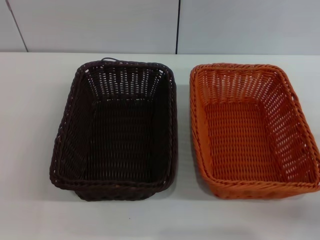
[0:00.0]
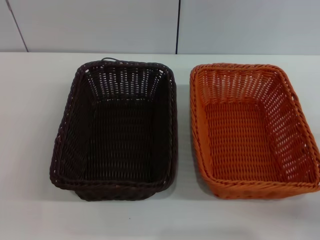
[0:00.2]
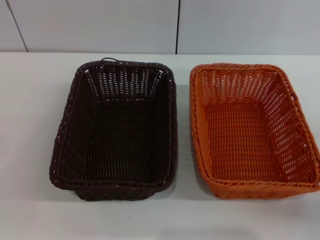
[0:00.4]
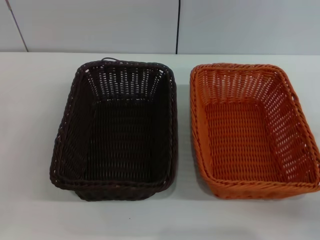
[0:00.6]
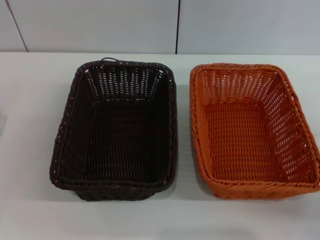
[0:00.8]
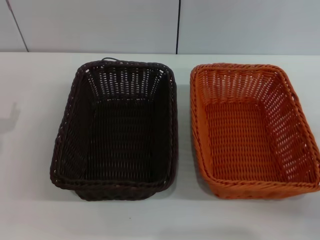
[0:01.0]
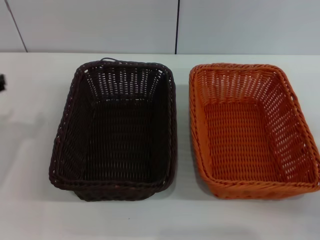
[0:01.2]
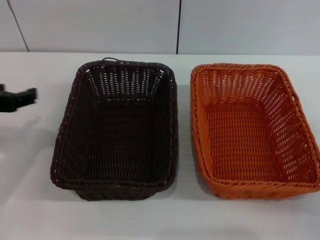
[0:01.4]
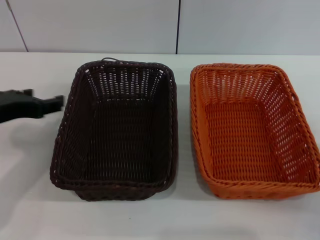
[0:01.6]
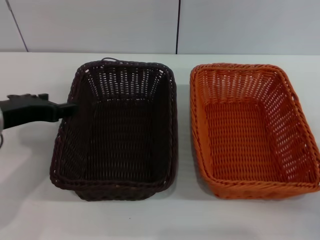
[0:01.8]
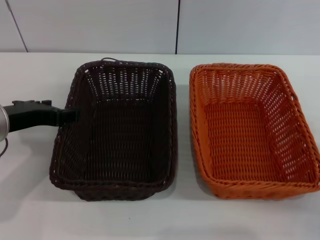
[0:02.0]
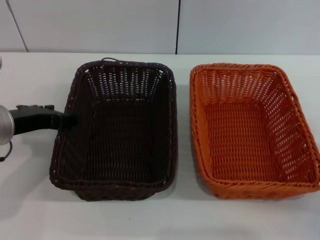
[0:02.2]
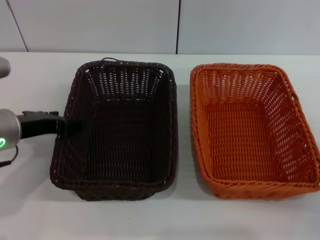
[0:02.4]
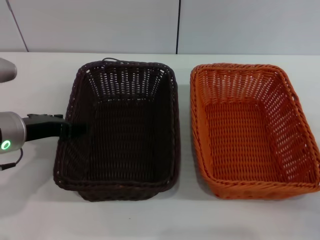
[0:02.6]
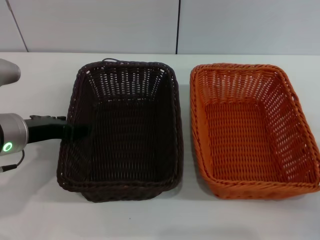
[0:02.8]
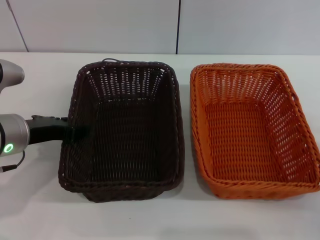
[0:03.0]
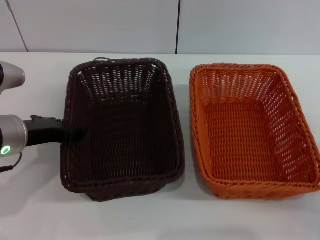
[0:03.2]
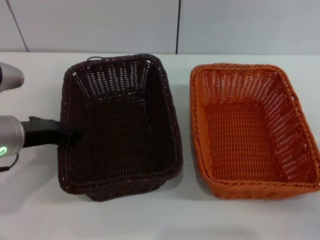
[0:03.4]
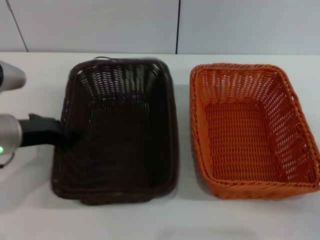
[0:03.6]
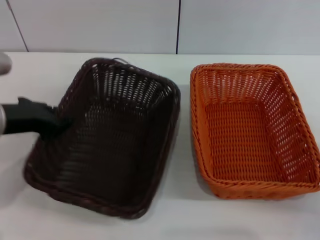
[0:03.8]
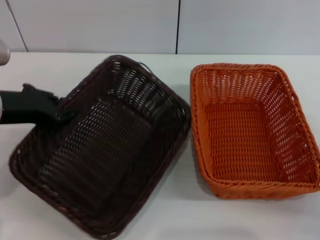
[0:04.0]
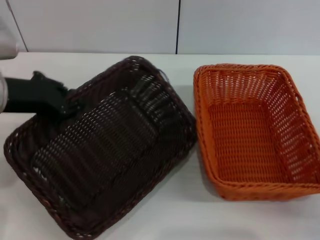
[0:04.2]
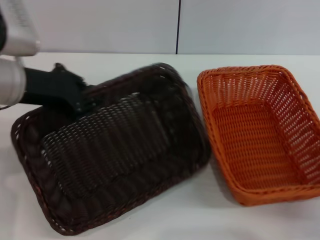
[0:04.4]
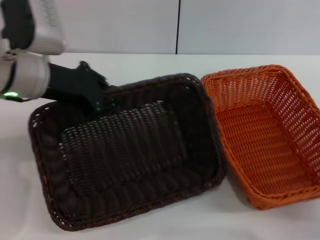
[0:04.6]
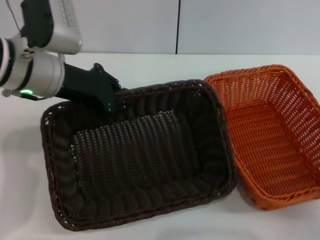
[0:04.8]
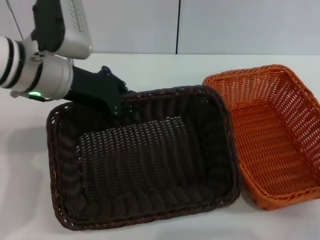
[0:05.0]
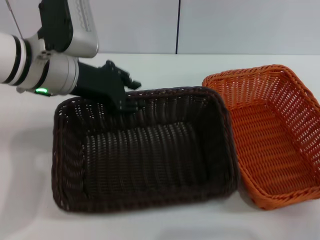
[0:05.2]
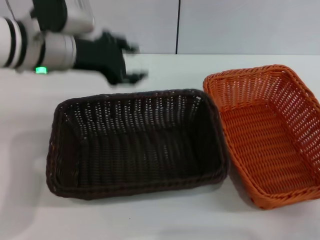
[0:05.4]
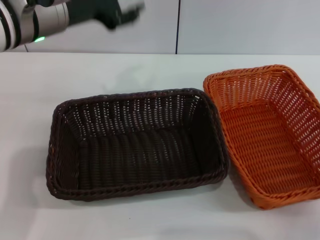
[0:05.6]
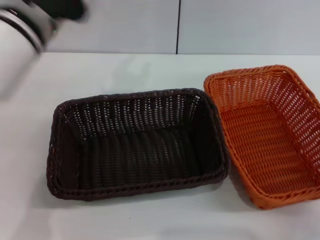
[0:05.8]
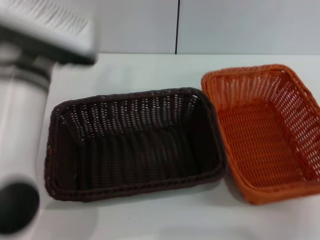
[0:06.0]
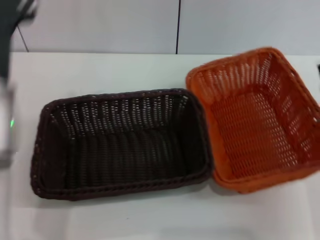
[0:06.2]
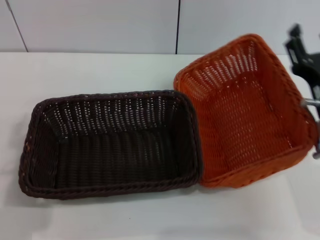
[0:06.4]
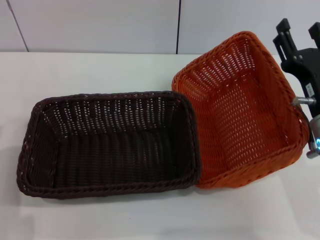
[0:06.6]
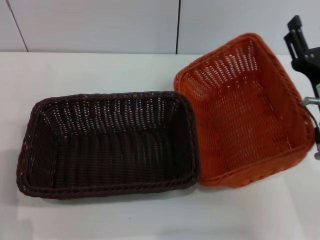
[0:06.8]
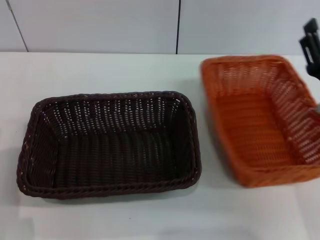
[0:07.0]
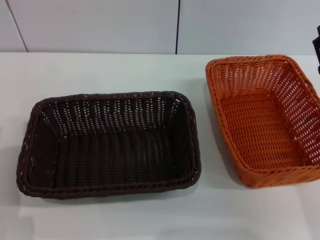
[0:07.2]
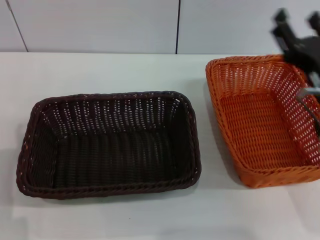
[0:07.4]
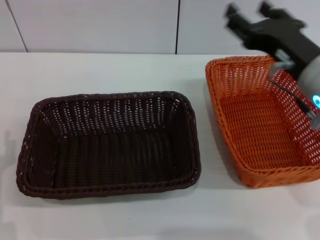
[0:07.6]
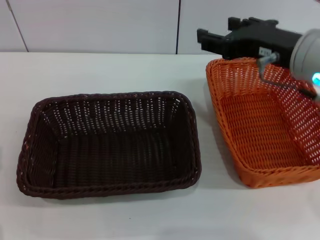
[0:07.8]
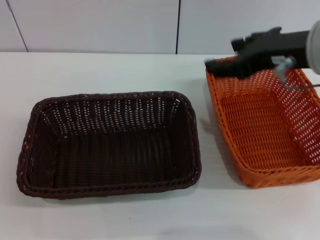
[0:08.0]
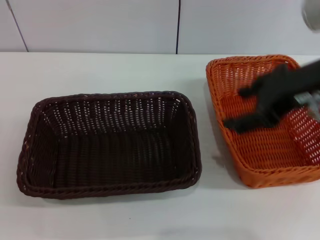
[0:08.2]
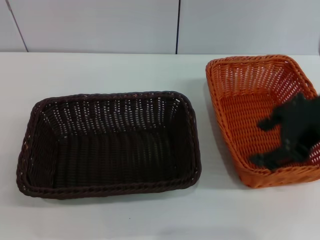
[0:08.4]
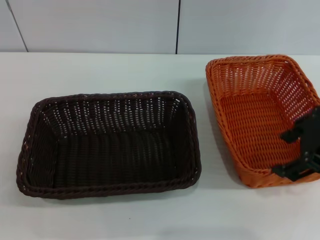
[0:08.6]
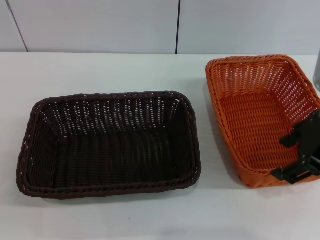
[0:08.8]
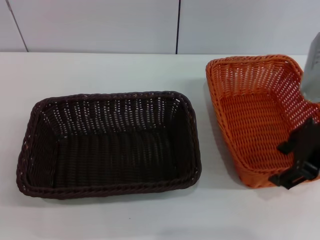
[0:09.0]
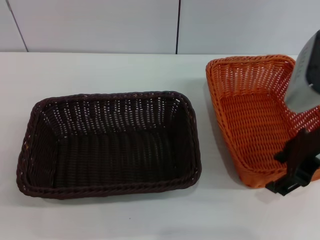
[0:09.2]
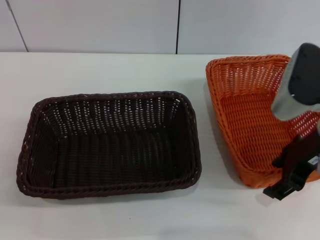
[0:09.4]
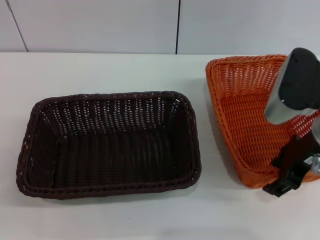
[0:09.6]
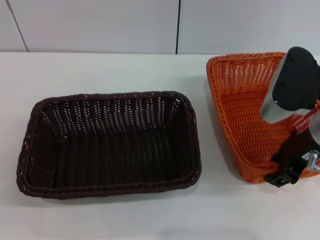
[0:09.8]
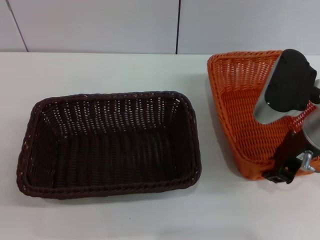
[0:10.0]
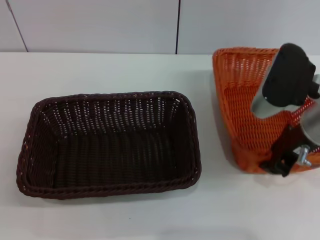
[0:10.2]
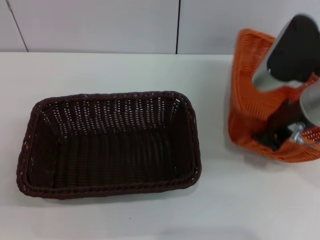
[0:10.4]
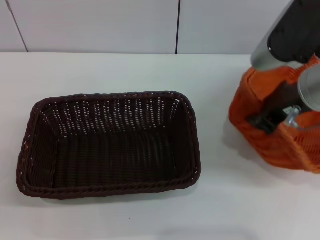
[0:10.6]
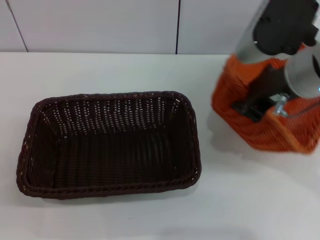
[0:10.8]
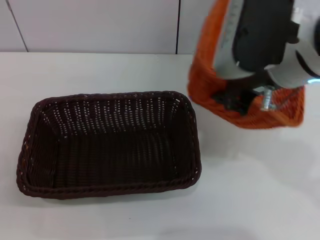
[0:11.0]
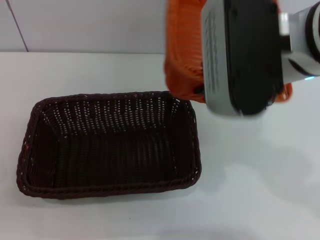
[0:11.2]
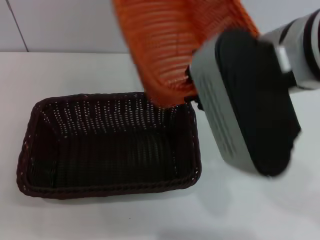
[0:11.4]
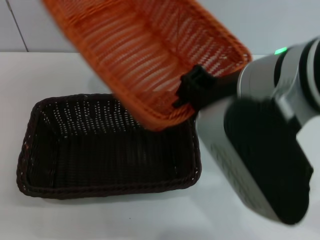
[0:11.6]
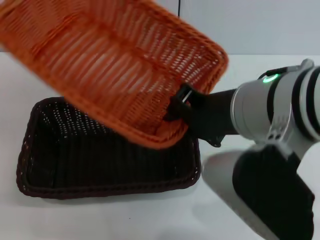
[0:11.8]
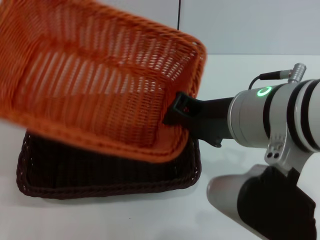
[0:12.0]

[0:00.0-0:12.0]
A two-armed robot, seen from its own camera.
Step, 0:00.0 to 0:04.4: Pick up the dark basket with the left gripper.
Step, 0:04.6 to 0:05.2: Place the dark basket in the center of view with the left gripper.
Step, 0:05.4 to 0:10.4: Pick up the light basket with the right gripper.
0:00.0 to 0:01.6: The left gripper moves upward, forward and to the right, some 20 cm.
0:01.6 to 0:03.0: The left gripper is displaced downward by approximately 5 cm.
0:03.0 to 0:04.4: The left gripper moves upward, approximately 10 cm, and closes its fingers.
0:04.4 to 0:06.0: The left gripper moves to the right, some 10 cm, and opens.
0:06.0 to 0:07.6: The left gripper moves downward, to the left and backward, some 25 cm; the right gripper heads upward and to the left, covering about 20 cm.
0:09.0 to 0:10.4: The right gripper closes its fingers.
0:10.4 to 0:12.0: The right gripper moves to the left and backward, approximately 10 cm.

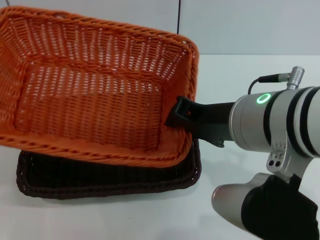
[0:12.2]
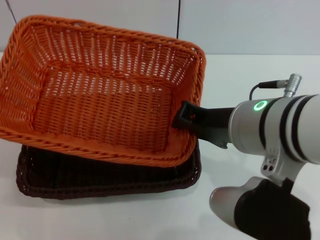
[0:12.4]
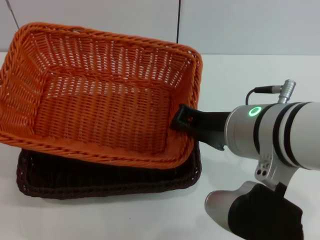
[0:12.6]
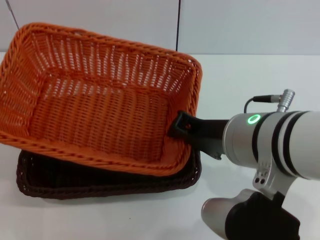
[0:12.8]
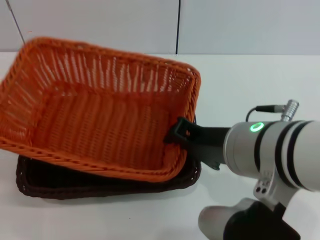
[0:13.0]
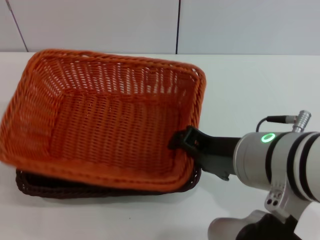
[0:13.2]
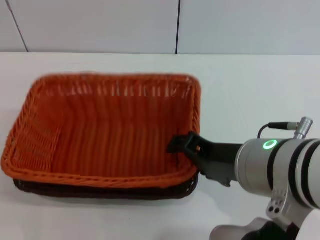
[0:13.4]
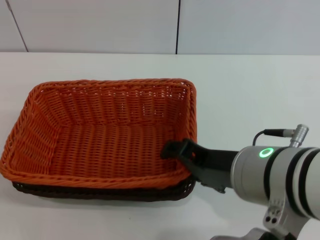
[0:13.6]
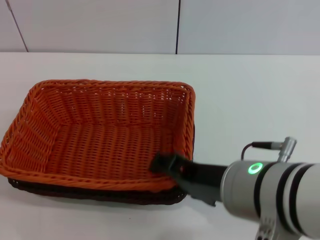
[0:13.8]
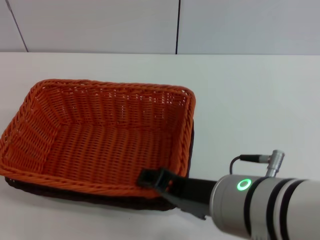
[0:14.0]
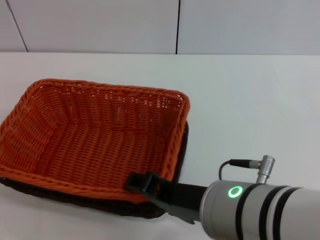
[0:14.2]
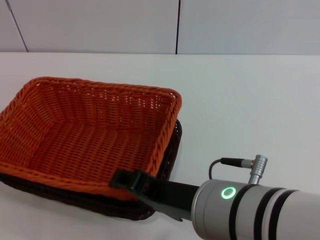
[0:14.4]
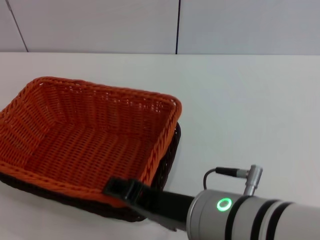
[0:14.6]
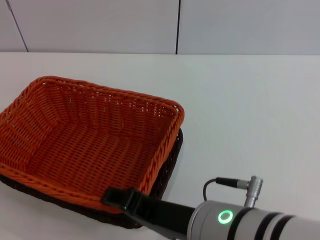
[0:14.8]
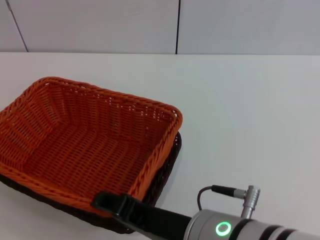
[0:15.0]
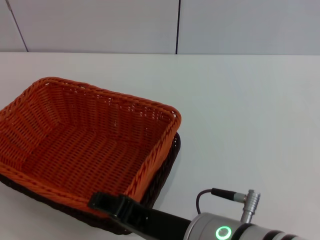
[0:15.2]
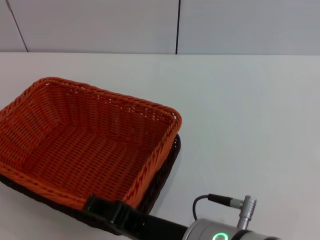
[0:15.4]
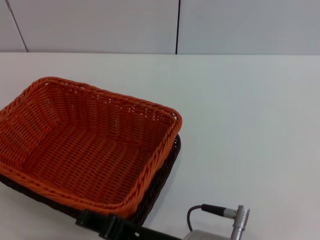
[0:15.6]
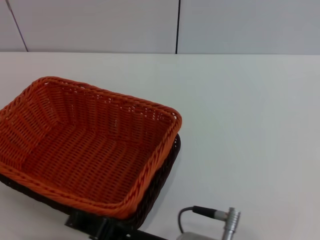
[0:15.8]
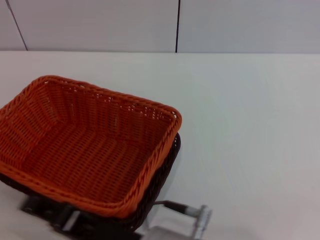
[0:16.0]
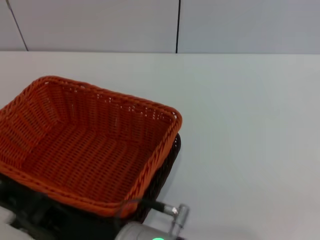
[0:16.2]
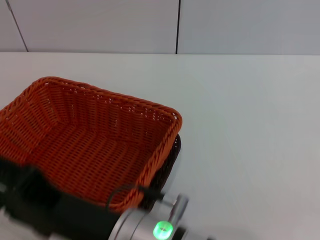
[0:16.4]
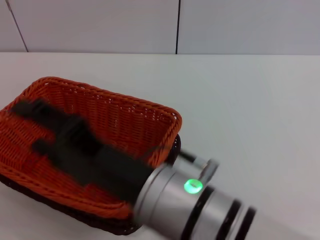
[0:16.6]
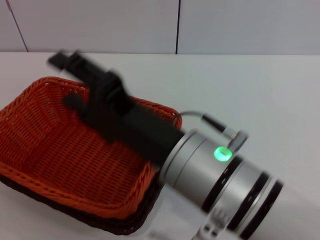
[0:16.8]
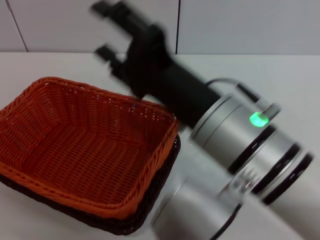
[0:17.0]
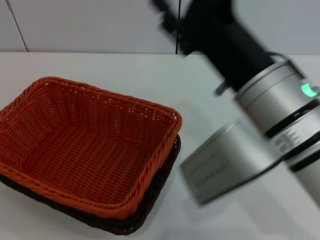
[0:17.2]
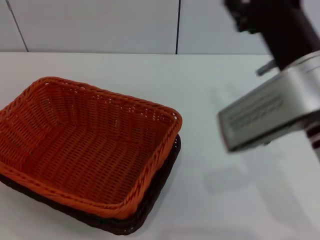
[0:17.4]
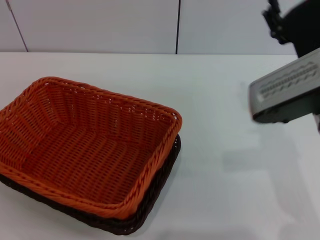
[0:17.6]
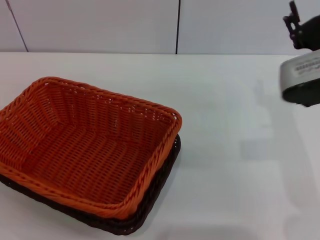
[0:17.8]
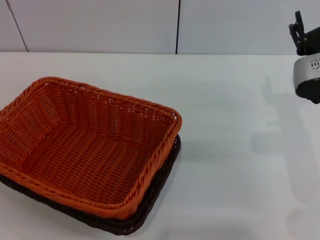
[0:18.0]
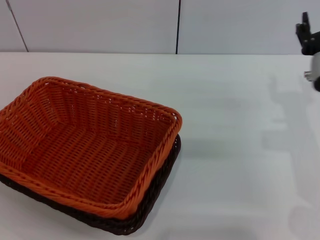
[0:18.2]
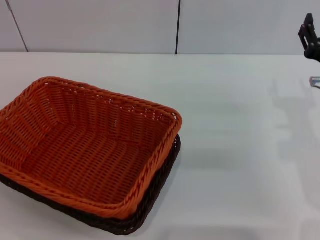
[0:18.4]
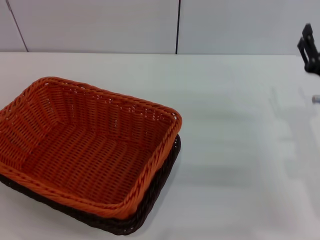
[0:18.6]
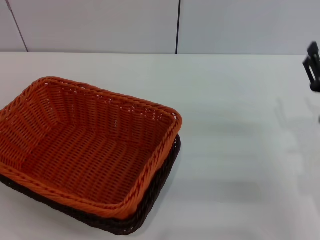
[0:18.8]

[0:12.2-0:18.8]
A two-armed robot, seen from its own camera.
Step, 0:12.2 to 0:15.4: Place the light basket on the dark basket with the right gripper.
0:12.2 to 0:13.8: The right gripper goes some 5 cm backward, and opens its fingers.
0:13.8 to 0:15.4: The right gripper heads backward, covering about 5 cm.
0:15.4 to 0:17.2: The right gripper goes roughly 10 cm forward and to the right.
0:17.2 to 0:18.8: The right gripper is displaced to the right and downward by roughly 20 cm.
